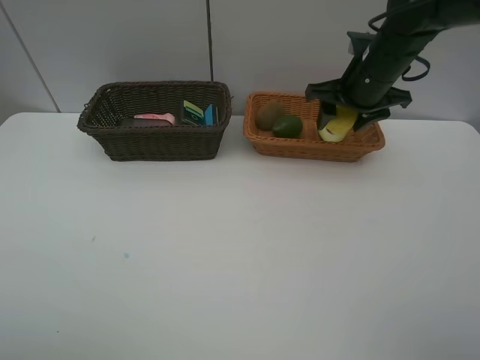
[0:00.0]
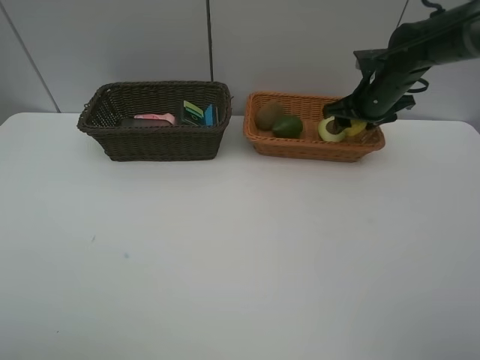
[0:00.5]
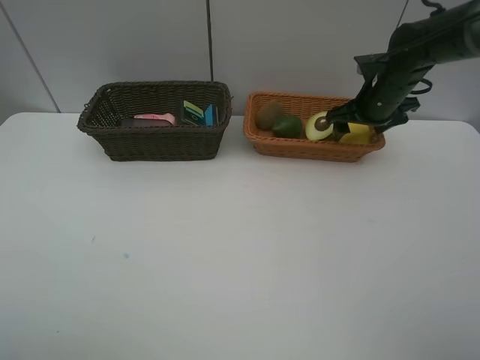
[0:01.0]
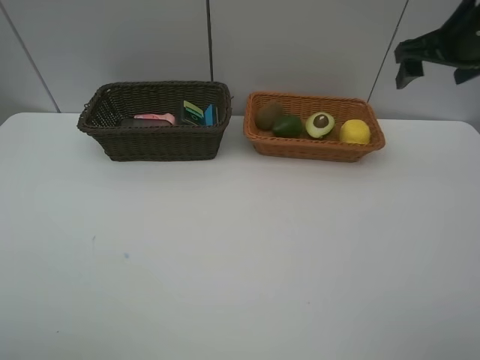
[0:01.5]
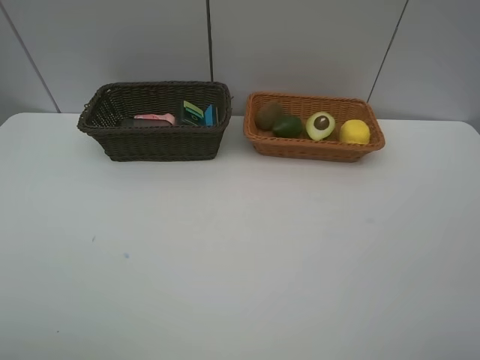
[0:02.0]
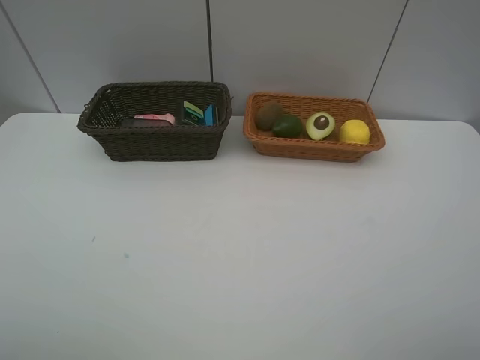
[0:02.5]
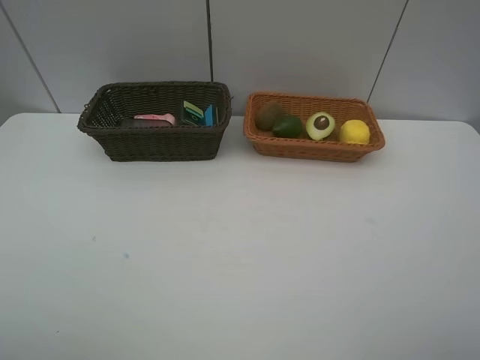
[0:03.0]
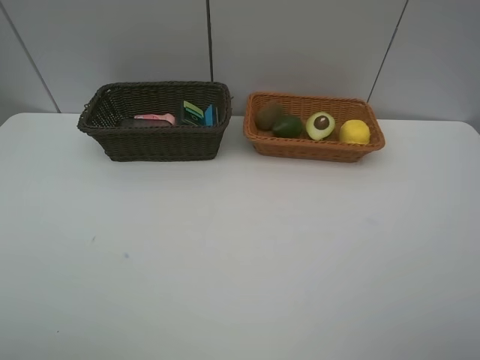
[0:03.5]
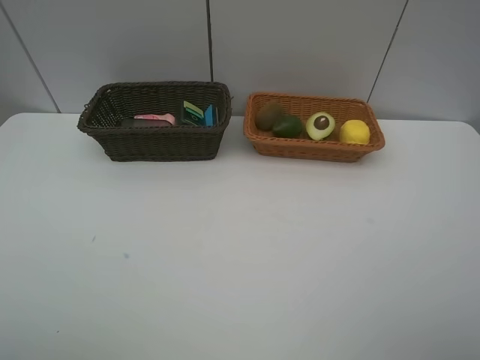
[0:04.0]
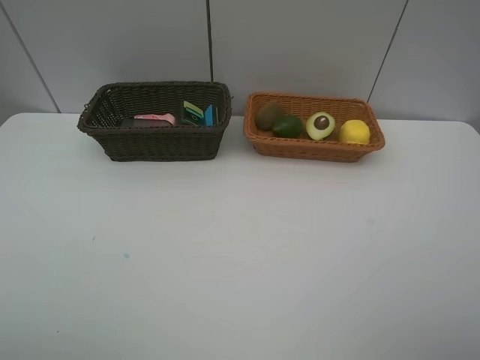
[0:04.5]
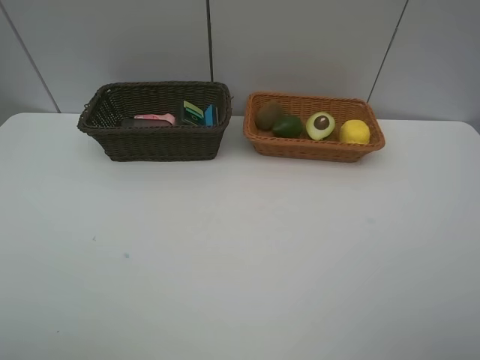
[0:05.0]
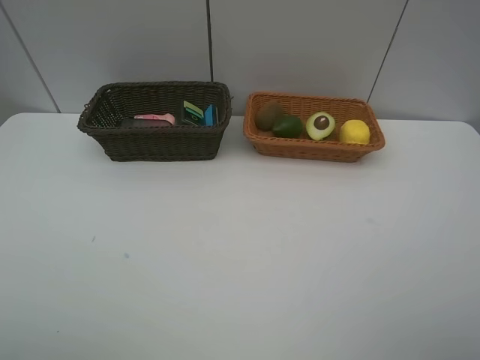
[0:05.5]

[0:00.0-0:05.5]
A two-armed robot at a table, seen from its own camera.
Task of the whole recording: Place multiple objects separately in different baskets.
Step, 0:00.0 to 0:01.0: Place the lemon in the light basket with right gripper.
0:00.0 to 0:02.0: The right gripper is displaced backward, upward and to the right by about 35 cm, and opens its fingers.
